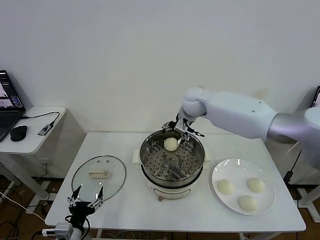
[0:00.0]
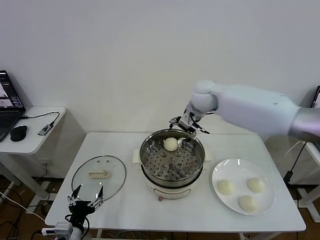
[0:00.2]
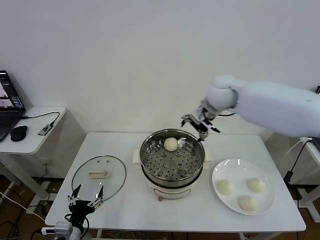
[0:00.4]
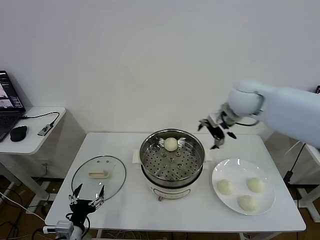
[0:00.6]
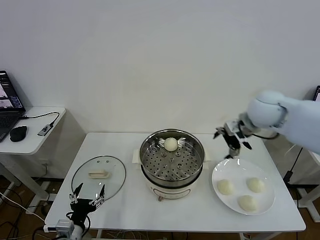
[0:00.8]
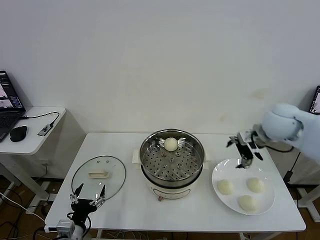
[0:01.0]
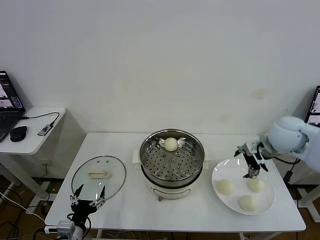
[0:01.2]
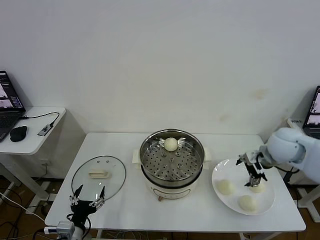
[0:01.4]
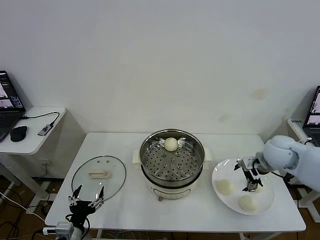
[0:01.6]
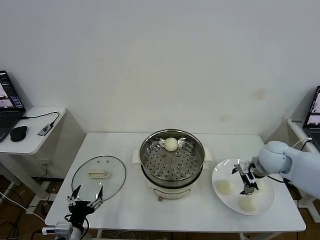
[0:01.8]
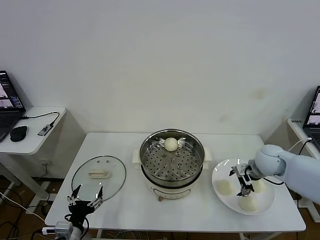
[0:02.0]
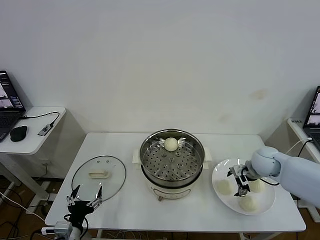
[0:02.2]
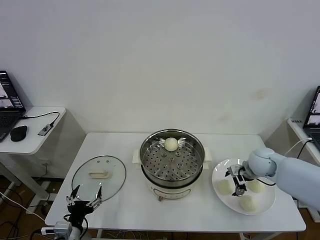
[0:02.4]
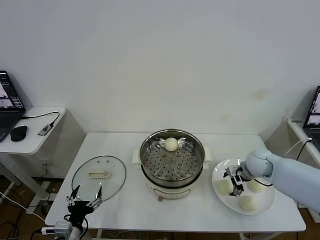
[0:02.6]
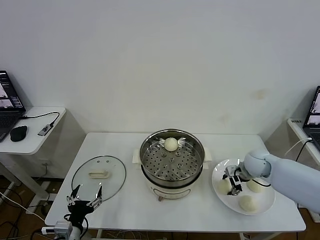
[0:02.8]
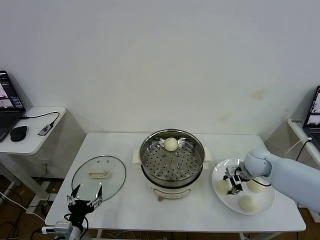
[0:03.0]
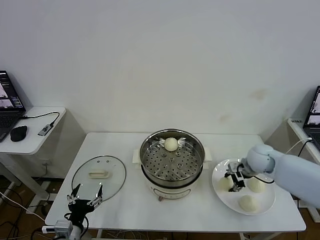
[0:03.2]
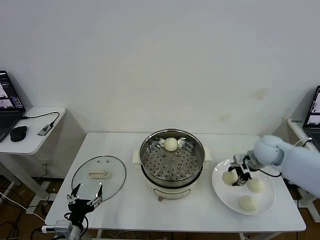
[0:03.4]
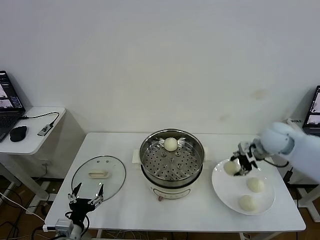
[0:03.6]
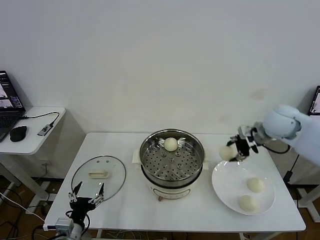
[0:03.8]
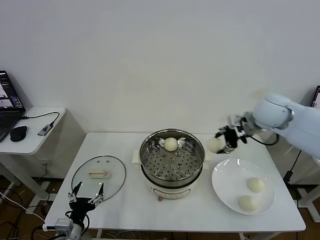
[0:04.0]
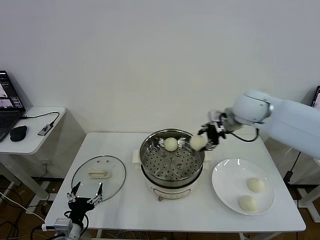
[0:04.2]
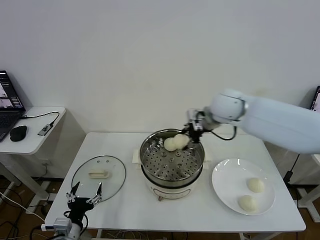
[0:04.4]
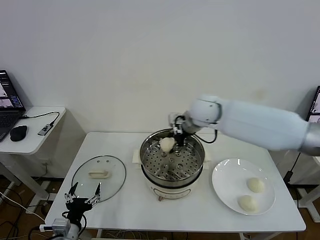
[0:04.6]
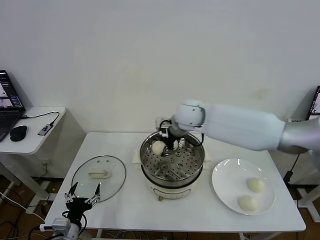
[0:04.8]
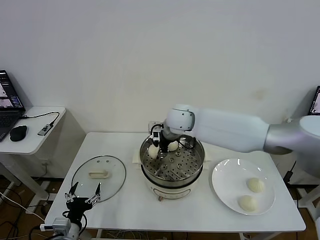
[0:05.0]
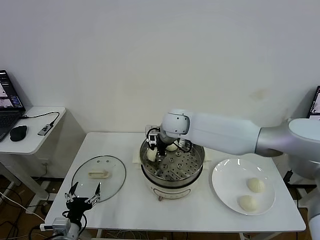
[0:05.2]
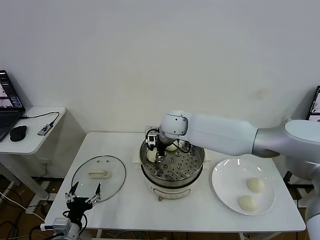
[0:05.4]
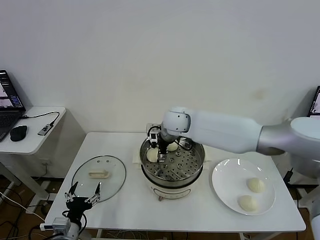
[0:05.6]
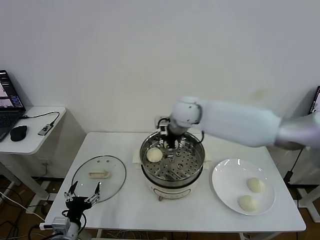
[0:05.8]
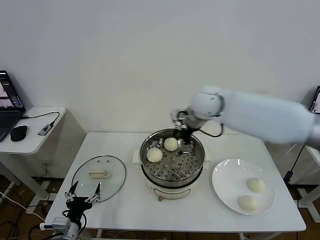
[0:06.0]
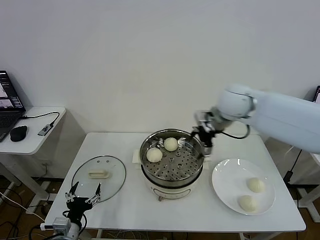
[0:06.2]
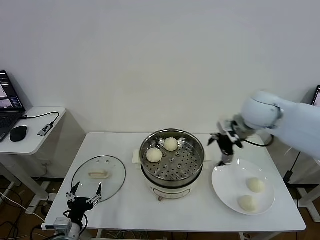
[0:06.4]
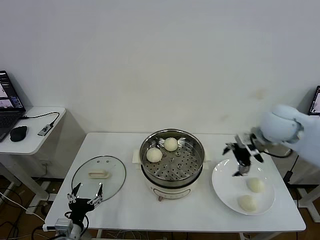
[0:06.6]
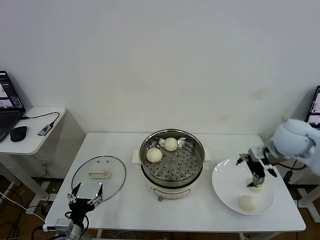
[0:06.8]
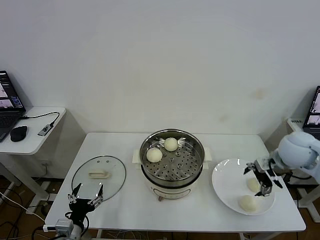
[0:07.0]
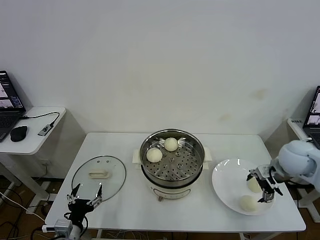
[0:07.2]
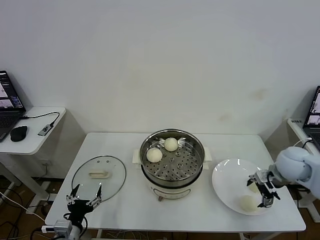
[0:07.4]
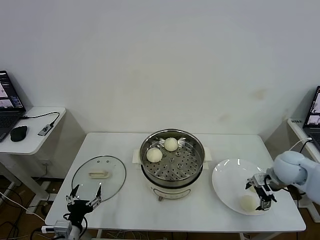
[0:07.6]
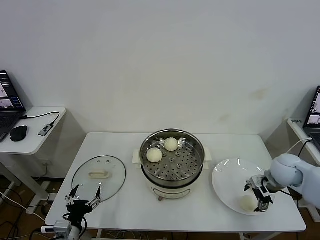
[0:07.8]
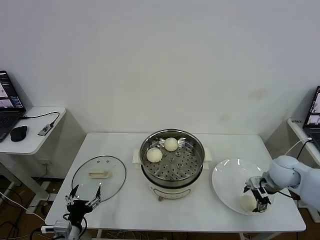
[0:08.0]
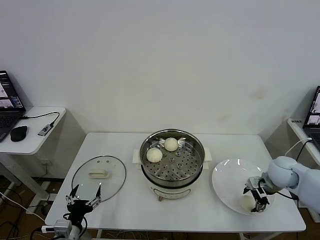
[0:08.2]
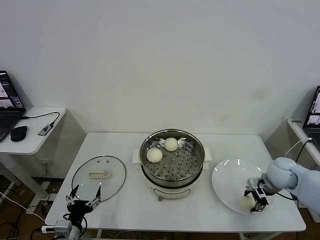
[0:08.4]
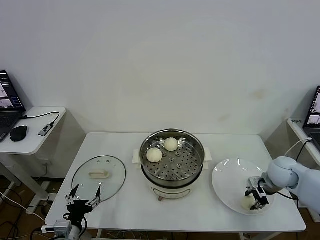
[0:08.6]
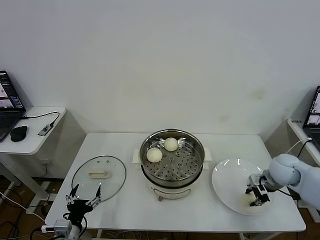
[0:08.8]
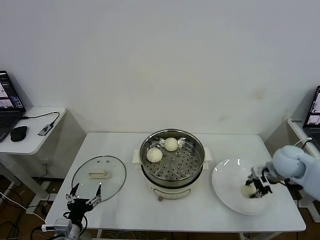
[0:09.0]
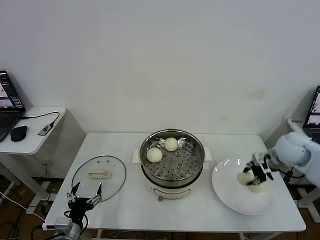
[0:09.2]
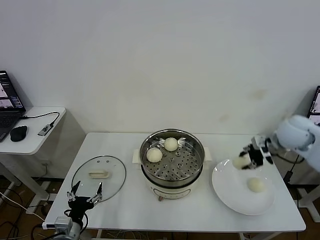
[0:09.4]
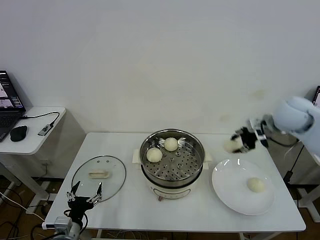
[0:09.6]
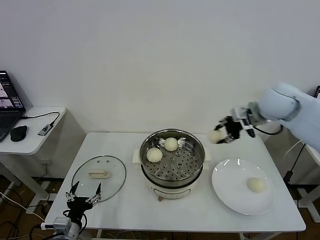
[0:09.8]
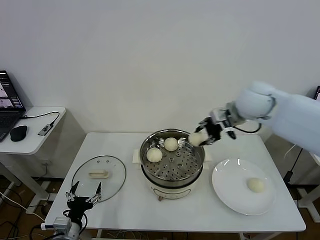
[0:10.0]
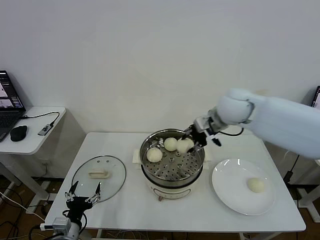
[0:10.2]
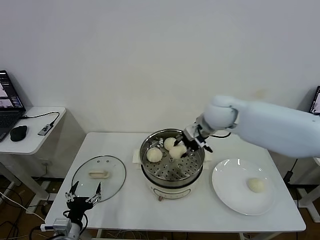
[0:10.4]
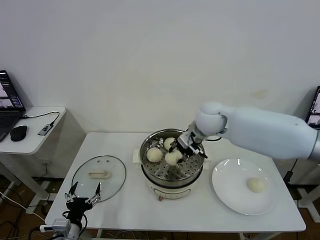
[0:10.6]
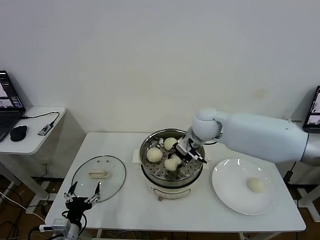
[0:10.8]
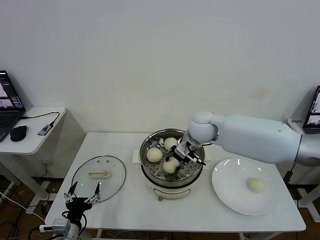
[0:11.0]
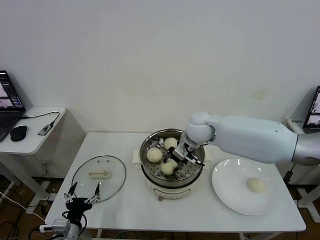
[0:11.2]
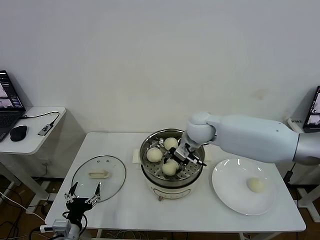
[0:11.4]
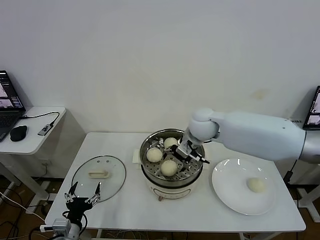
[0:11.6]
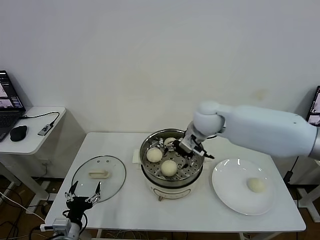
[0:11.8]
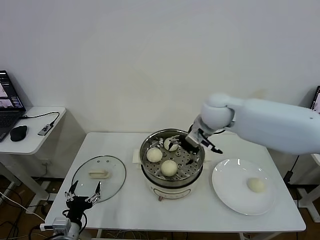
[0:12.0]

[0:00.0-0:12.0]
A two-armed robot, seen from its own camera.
Task of the whole recording: take steamed baozi put them in steamer then cover it.
Step, 0.0 to 2.8 s: Grasp the baozi in the plate with right gripper.
Step, 3.0 to 5.6 s: Place the baozi on the steamer with right gripper.
Step, 5.8 to 8.4 s: Grasp the baozi in the plate with right gripper.
Step, 8.6 to 11.6 s: Place the baozi on the steamer with right gripper.
0.0 to 1.6 s: The right gripper moves to the right, backward and downward, about 30 cm.
1.6 to 3.0 s: The right gripper shifts some 10 cm downward, and closes its fingers.
3.0 to 4.4 s: The right gripper is displaced upward and to the left by some 25 cm.
4.4 to 6.0 s: The right gripper reaches approximately 10 cm to the left, then returns, and opens up.
6.0 to 7.6 s: The right gripper heads to the right, downward and backward, covering some 35 cm.
7.6 to 9.0 s: The right gripper closes.
9.0 to 10.4 s: The right gripper is displaced to the left and upward by about 25 cm.
10.4 to 12.0 s: The right gripper reaches about 5 cm downward, then returns, and opens up.

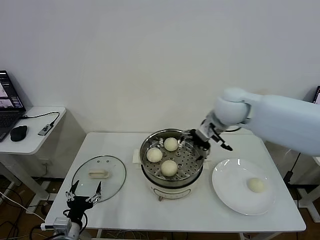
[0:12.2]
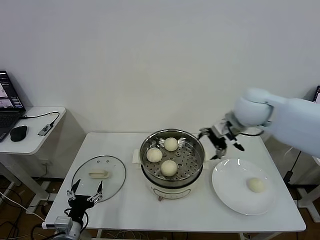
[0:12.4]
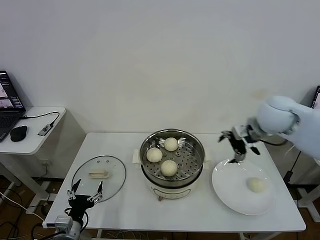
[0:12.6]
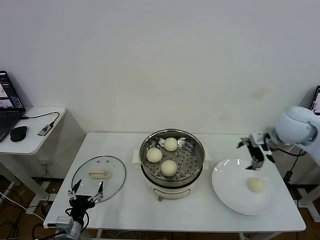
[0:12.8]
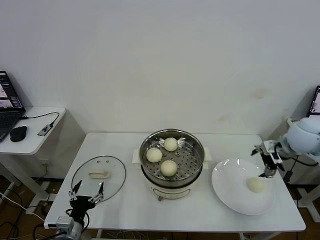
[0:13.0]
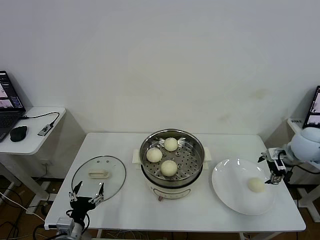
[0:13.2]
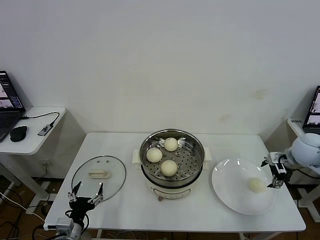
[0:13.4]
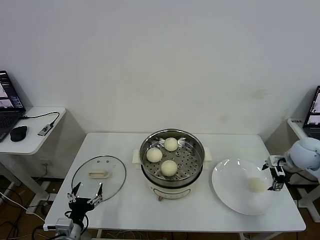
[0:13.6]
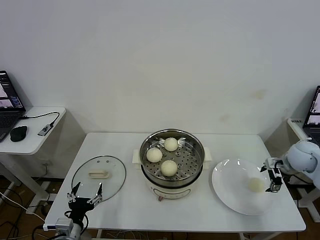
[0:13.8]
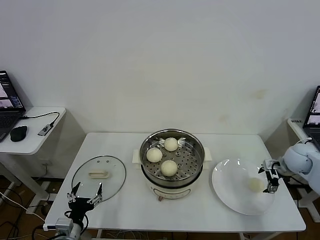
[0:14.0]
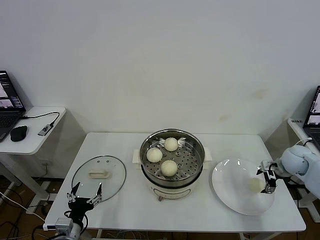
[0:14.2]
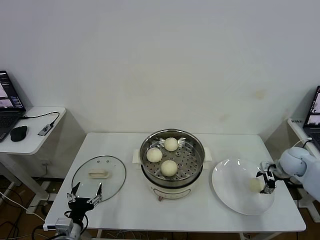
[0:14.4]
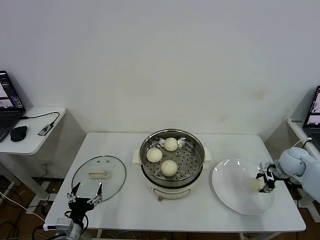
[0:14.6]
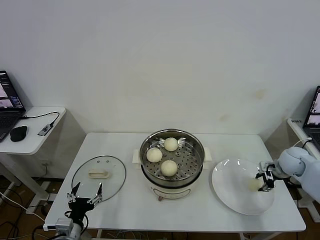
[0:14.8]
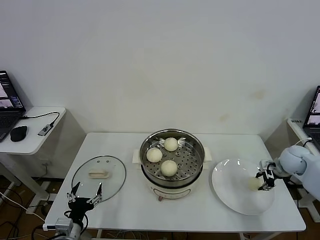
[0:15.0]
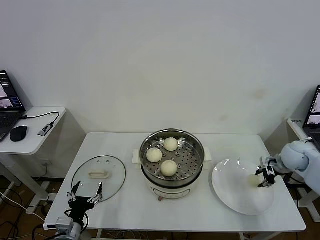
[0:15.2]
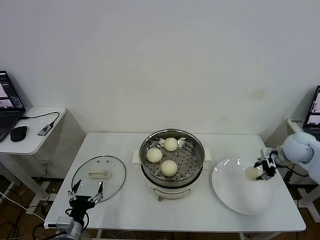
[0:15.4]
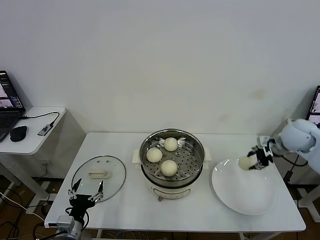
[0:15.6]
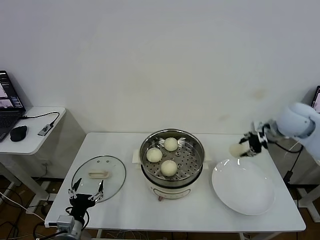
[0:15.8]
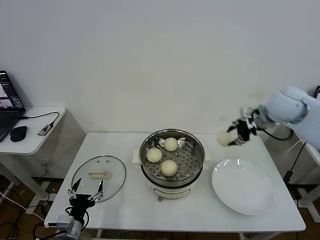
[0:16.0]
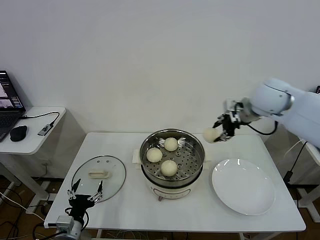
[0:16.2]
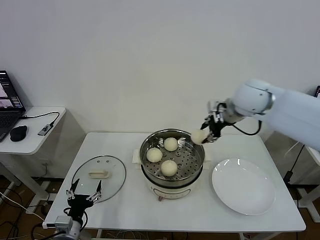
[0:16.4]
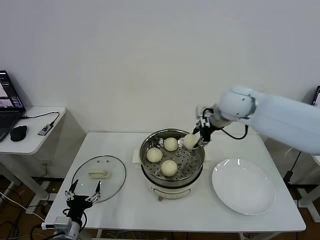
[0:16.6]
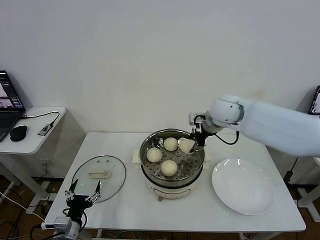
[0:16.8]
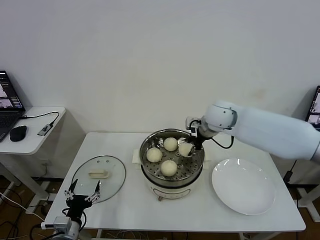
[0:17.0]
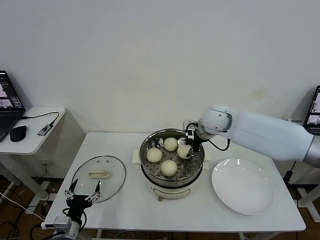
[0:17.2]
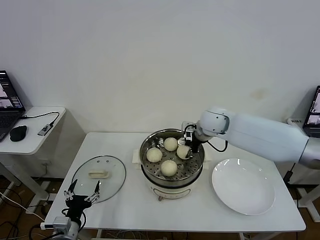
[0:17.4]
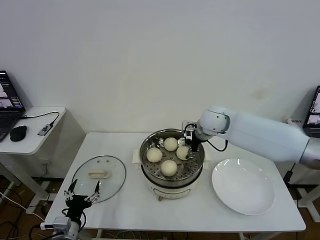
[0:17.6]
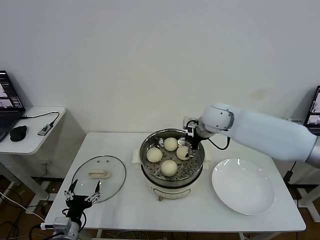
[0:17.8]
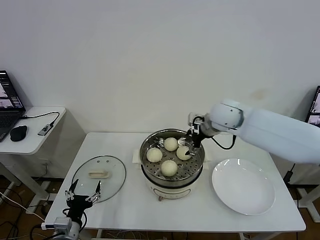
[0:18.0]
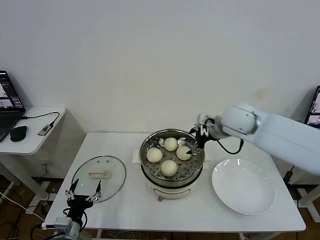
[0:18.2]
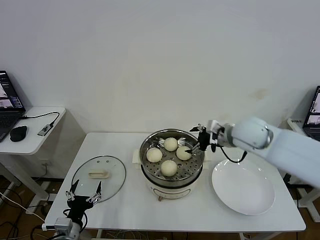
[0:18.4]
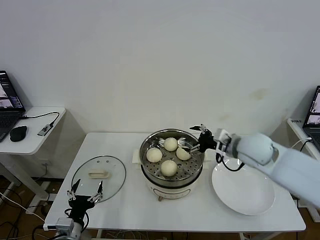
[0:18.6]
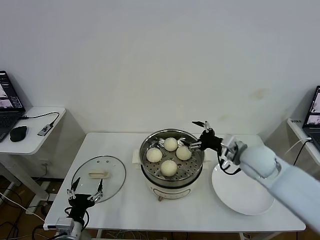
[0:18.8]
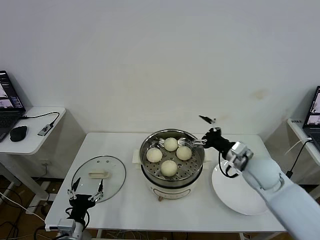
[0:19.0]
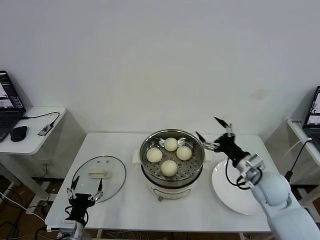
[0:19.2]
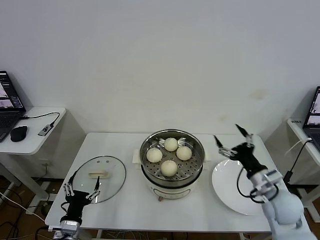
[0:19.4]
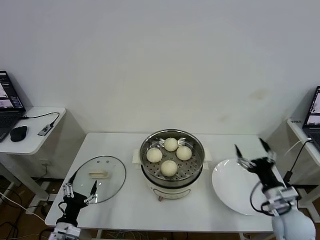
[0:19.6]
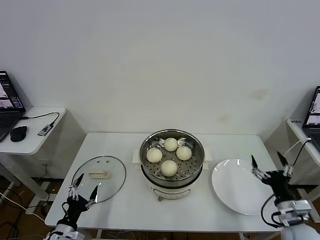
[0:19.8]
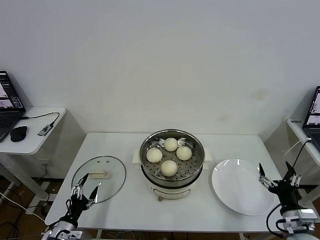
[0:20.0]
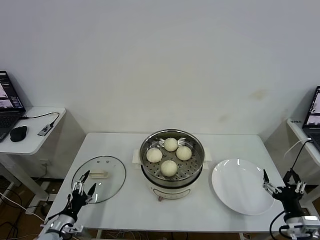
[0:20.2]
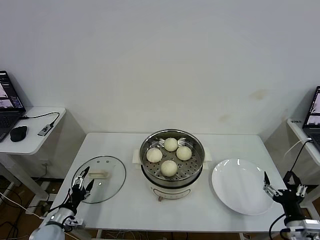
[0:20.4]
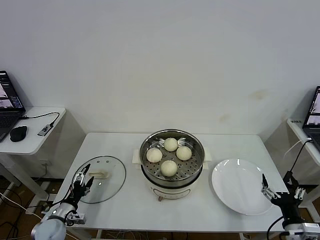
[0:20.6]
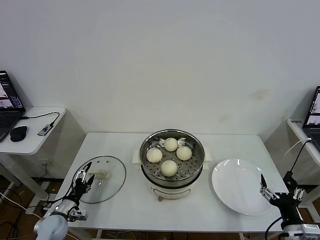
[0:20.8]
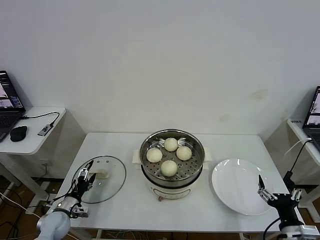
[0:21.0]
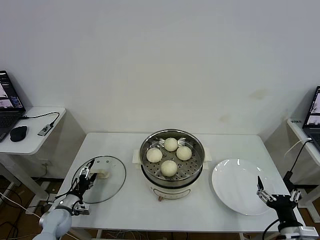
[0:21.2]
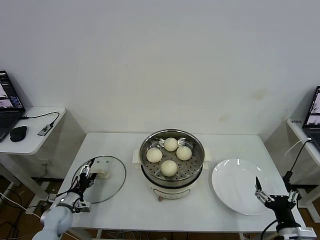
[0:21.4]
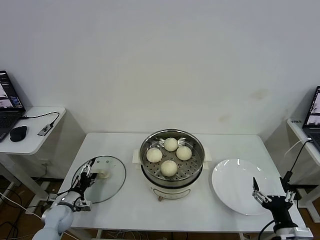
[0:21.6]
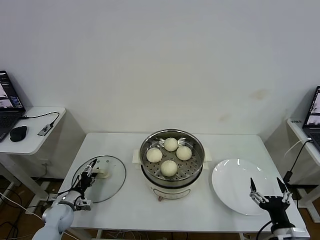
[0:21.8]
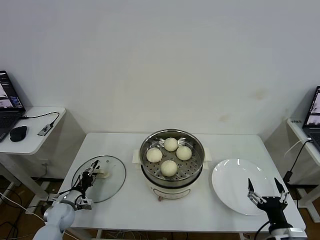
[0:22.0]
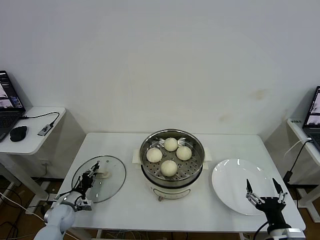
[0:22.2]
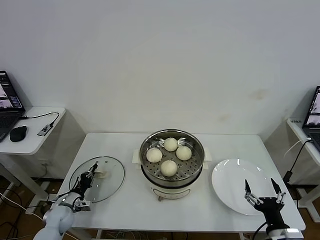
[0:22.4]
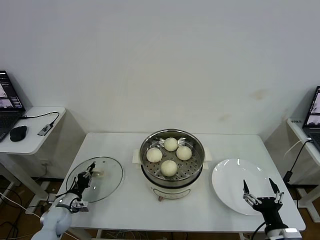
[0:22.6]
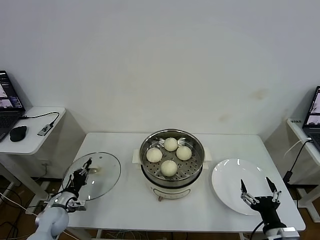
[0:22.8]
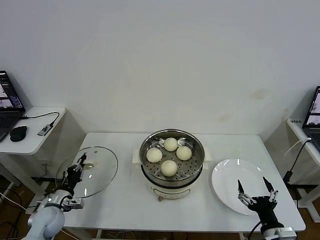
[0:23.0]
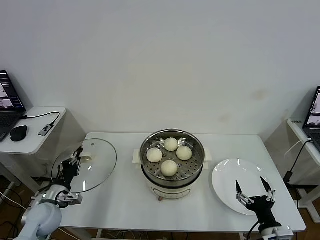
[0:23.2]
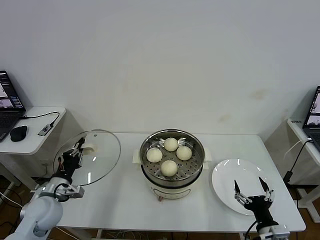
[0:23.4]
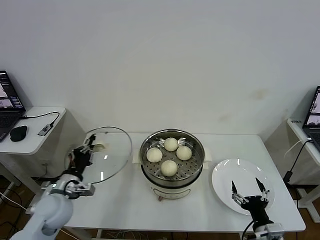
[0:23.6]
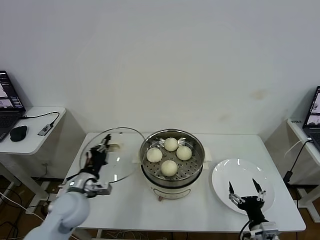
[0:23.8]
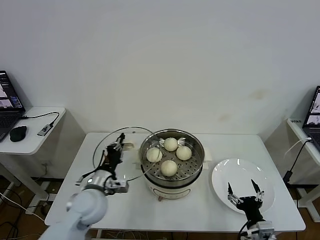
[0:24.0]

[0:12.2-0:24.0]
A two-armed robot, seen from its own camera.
Task of the whole recording: take steamed baozi put them in steamer then cover it.
Step, 12.2 to 14.6 s: Grasp the baozi in the plate with right gripper.
Step, 14.8 to 17.6 s: Place the baozi on the steamer with right gripper.
Step, 17.8 to 22.4 s: Grasp the pot lid with left gripper.
12.2 to 13.6 s: The right gripper heads to the right and downward, covering some 30 cm.
13.6 to 15.2 s: The right gripper closes up.
15.2 to 16.6 s: The right gripper heads to the left and upward, covering some 30 cm.
16.6 to 18.2 s: The right gripper opens up.
18.2 to 19.6 s: The right gripper shifts some 35 cm backward, downward and to the right.
19.6 to 21.0 s: The left gripper heads forward, to the left and downward, covering roughly 15 cm. Meanwhile the right gripper is displaced backward by some 10 cm.
21.0 to 22.6 s: The left gripper closes.
22.6 to 24.0 s: The left gripper heads upward and to the right, covering roughly 25 cm, while the right gripper moves approximately 5 cm.
